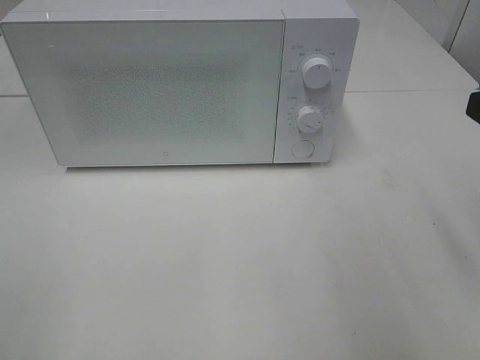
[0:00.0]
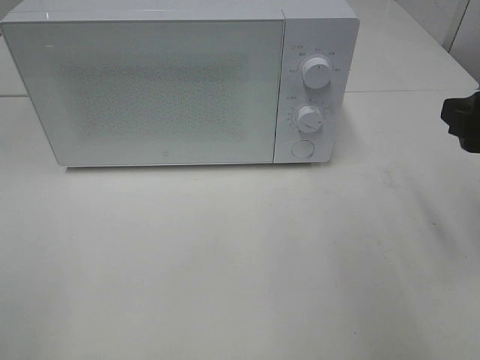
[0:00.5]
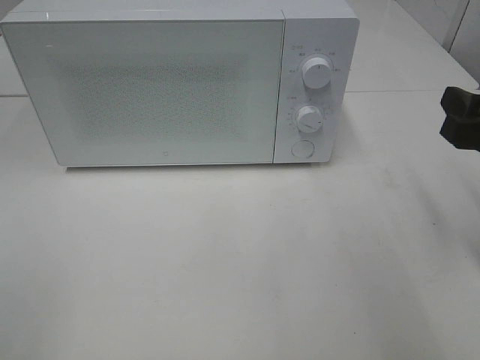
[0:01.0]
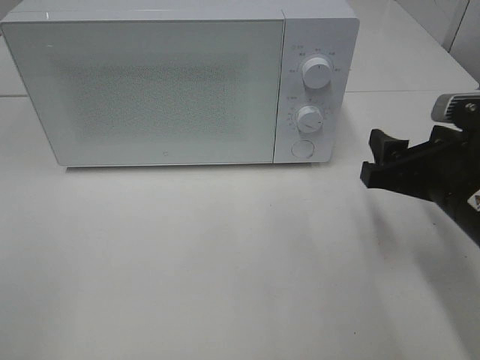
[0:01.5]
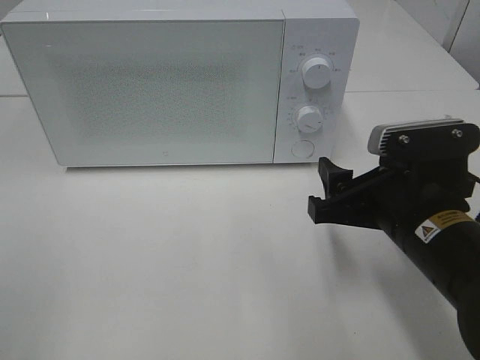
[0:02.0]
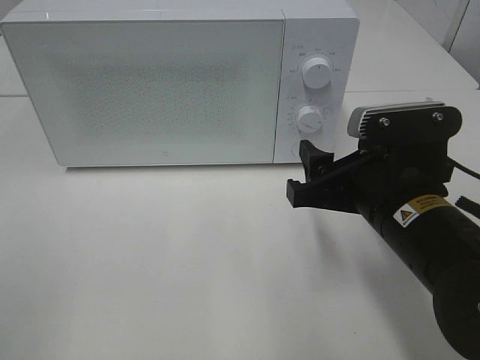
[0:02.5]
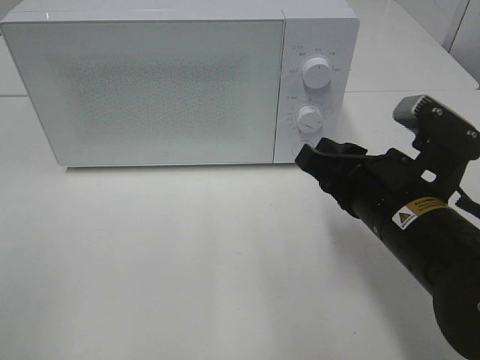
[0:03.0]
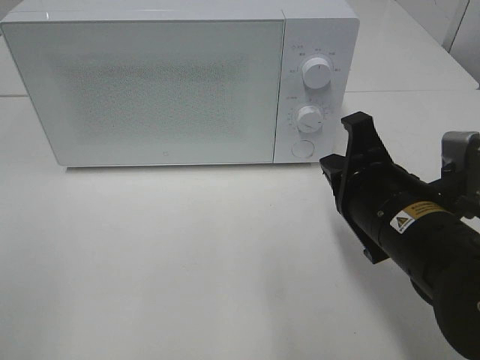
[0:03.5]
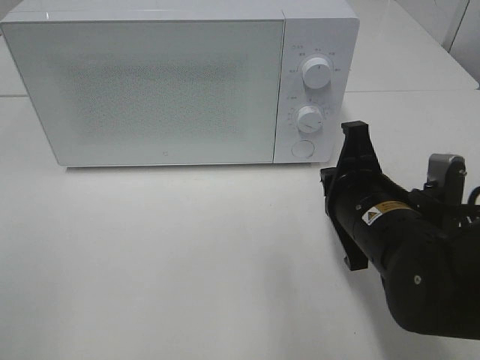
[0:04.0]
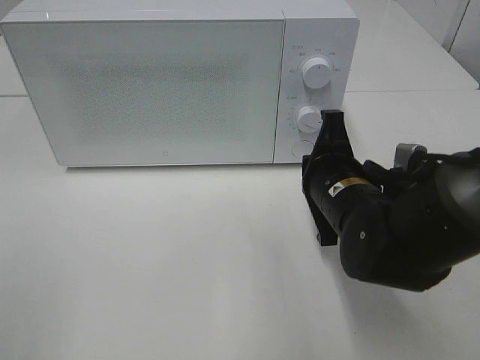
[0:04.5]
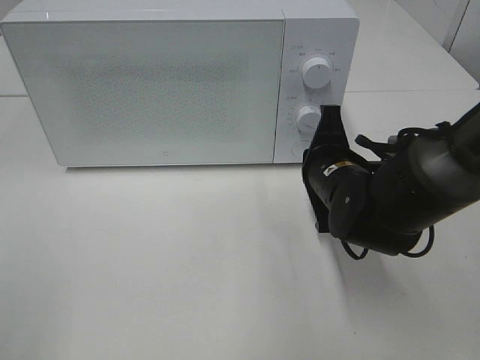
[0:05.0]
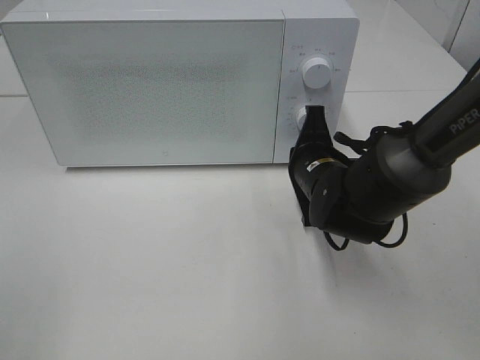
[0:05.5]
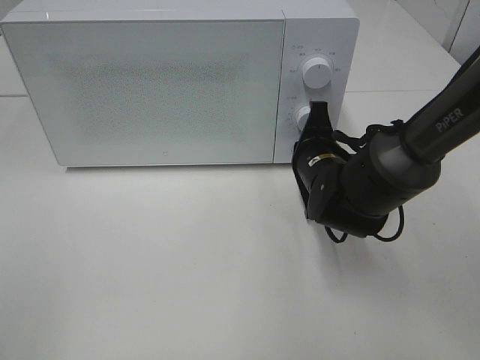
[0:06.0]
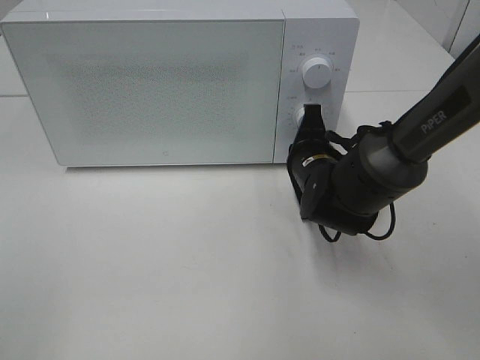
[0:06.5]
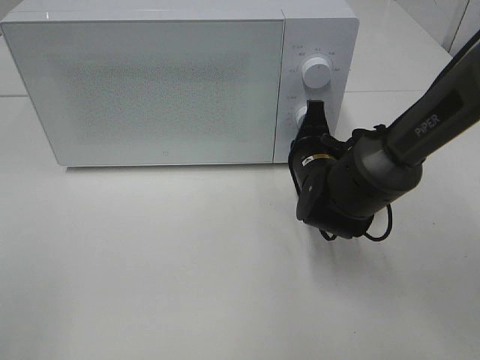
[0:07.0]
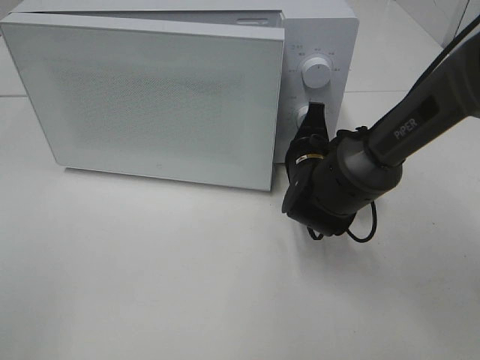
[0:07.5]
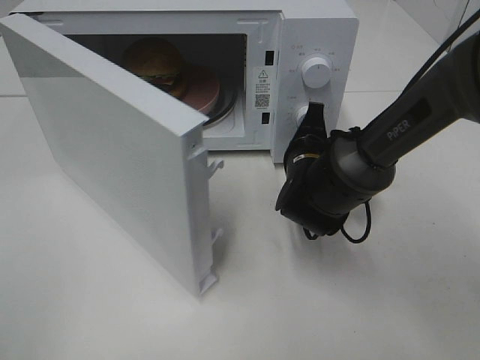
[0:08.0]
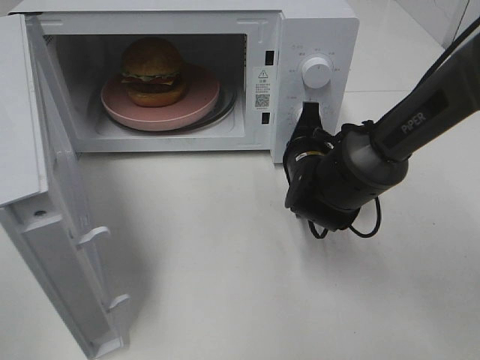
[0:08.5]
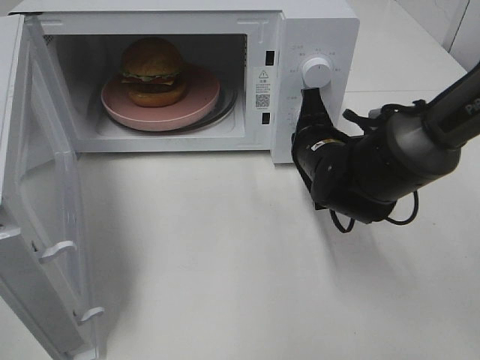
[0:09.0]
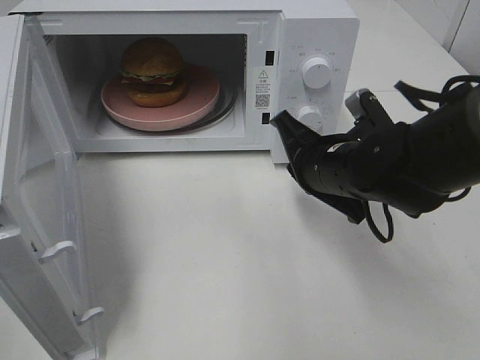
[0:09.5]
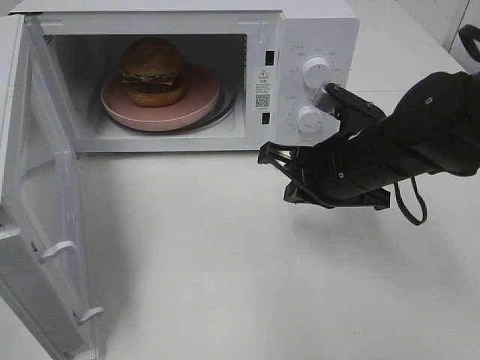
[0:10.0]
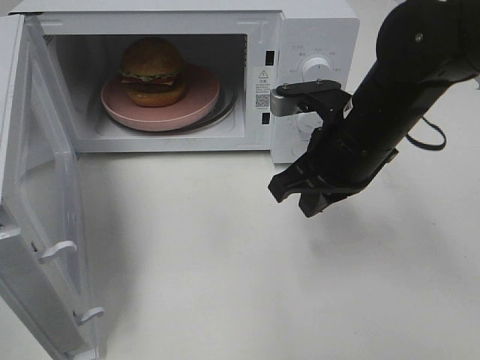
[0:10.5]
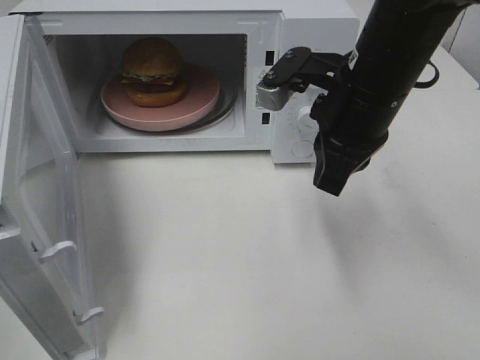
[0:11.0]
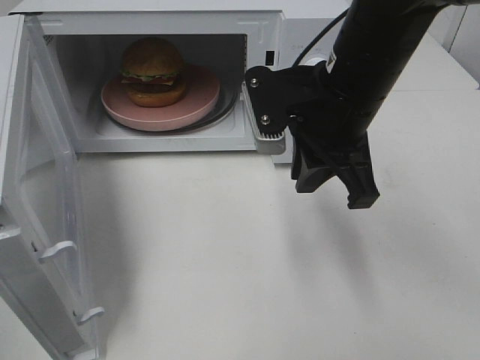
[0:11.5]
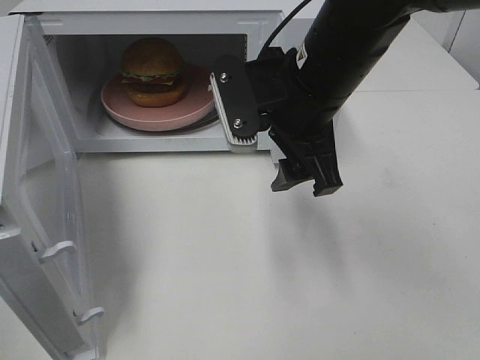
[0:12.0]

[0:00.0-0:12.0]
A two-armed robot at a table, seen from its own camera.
Task of the whole recording: Heat the burger.
Step, 0.0 to 8.5 s: Right hand: press the switch.
0.0 to 2.0 s: The right gripper shifts approximately 15 cm downward and to the left.
2.0 to 4.0 s: The right gripper closes.
4.0 to 6.0 s: The right gripper shifts approximately 10 cm forward.
8.0 to 10.0 s: The right gripper goes some 10 cm upward and backward.
10.0 to 12.0 s: The right gripper is displaced upward and to the left by some 10 cm, and opens its fingers.

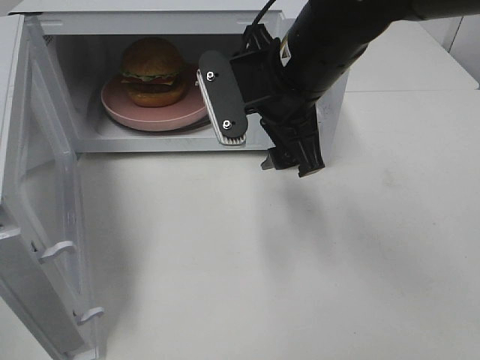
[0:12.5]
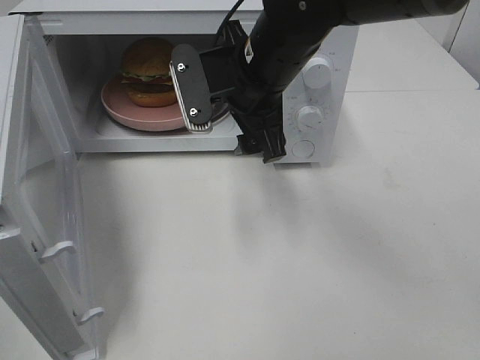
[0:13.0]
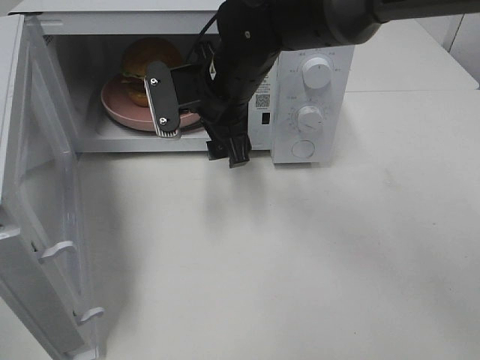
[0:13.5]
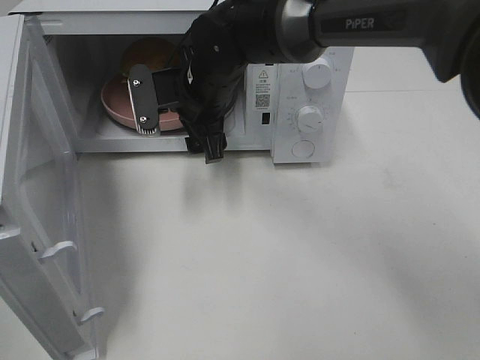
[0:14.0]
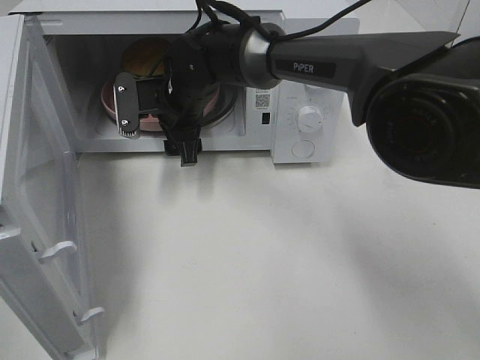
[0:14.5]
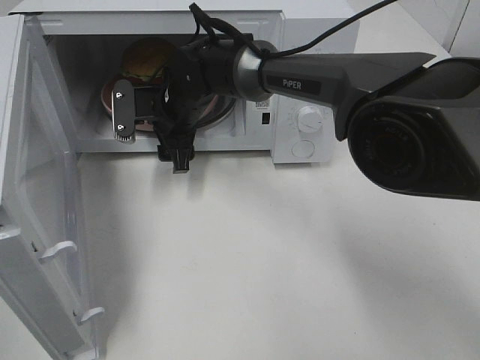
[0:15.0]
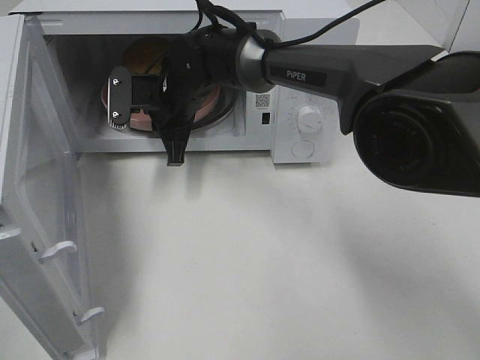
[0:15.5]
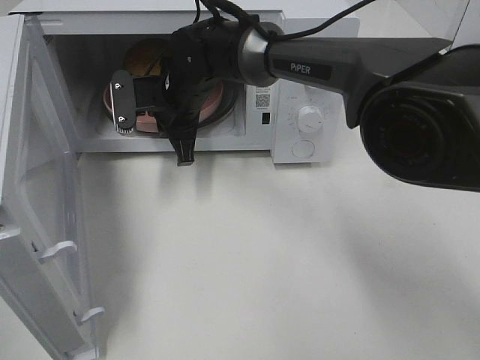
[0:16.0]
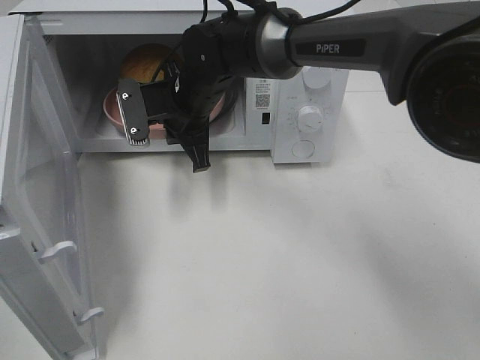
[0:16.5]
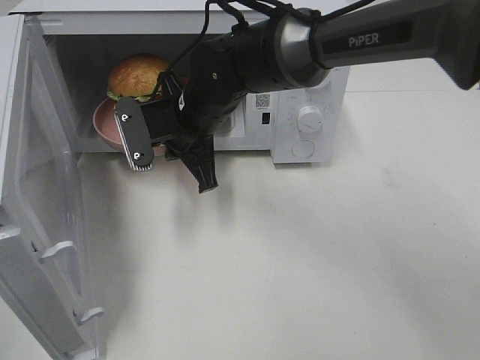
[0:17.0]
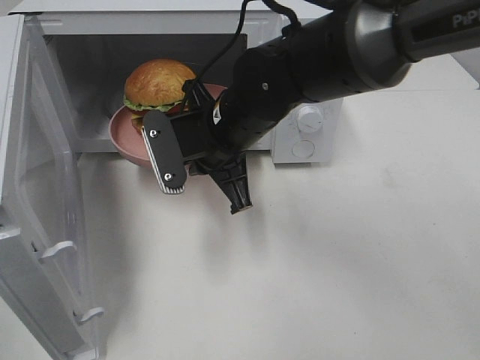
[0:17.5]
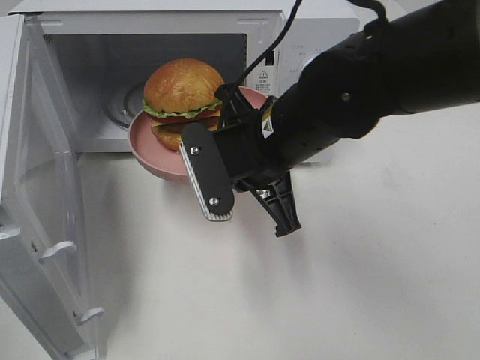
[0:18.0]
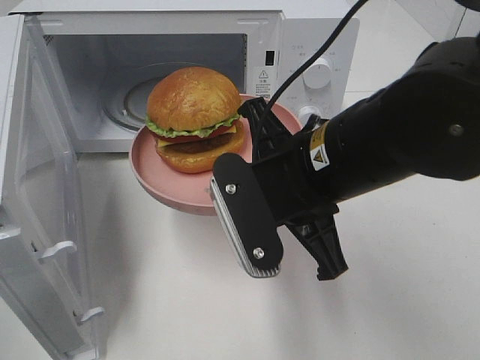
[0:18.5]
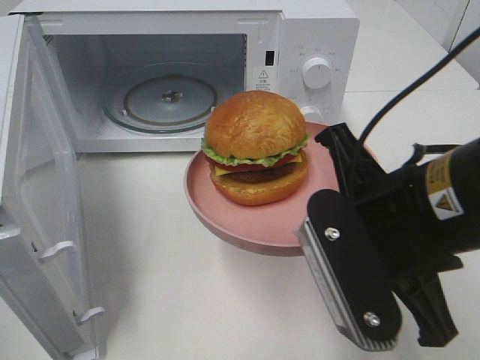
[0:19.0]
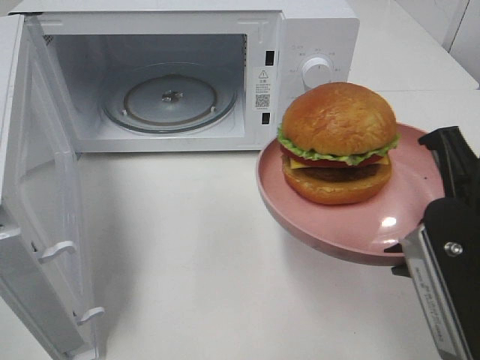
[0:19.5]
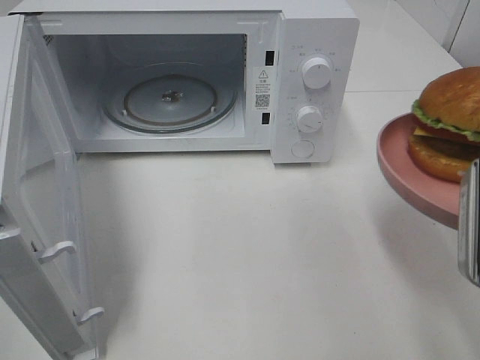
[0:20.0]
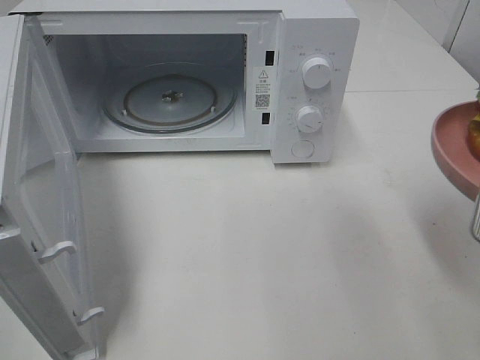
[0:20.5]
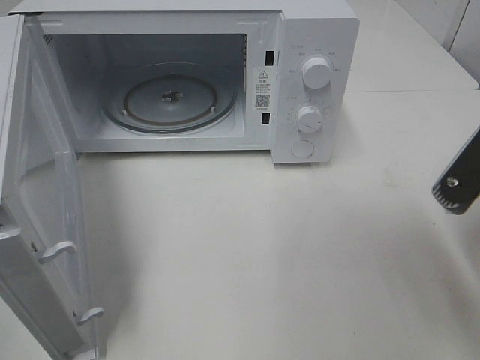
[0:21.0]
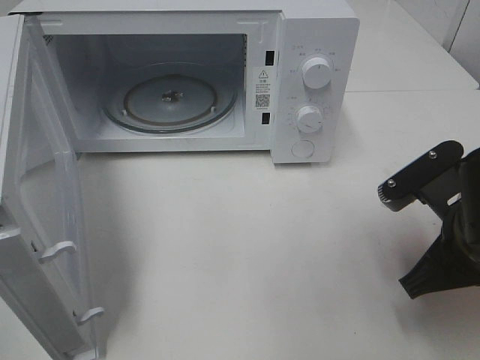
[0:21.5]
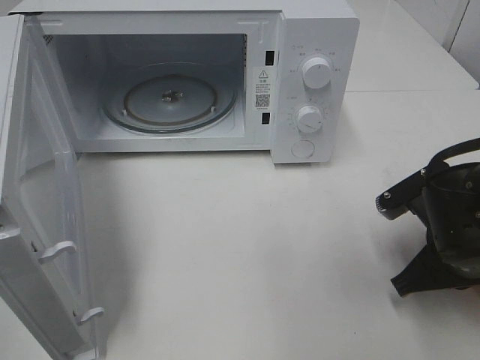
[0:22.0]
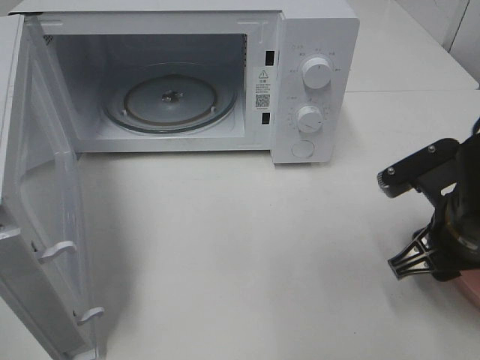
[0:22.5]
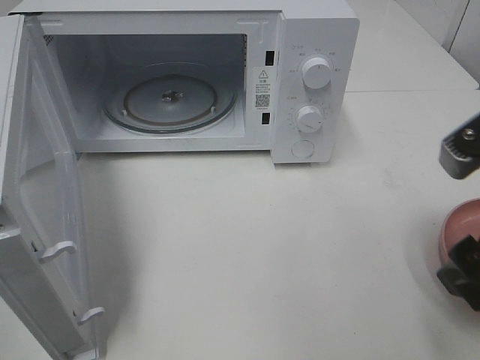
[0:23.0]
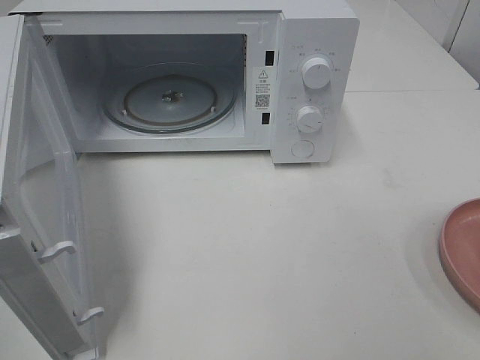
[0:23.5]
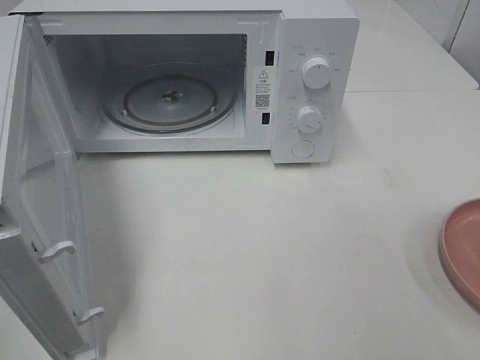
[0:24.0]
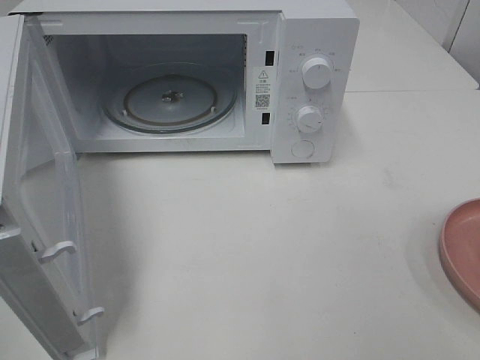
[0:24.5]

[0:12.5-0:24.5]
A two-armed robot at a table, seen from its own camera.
Task of the whole recording: Heat the burger.
Step, 12.5 to 15.5 s: Right hand: grab the plate with the hamburger.
Step, 16.0 to 22.0 s: Right hand: place the plate on the table.
12.5 to 14.5 s: The right gripper shifts about 20 cm forward, to the left and downward.
14.5 to 16.5 s: The right gripper closes up.
16.5 to 18.5 s: The right gripper goes about 25 cm backward and to the right.
18.5 to 20.5 s: The right gripper goes approximately 20 cm to the right and backward.
20.5 to 22.5 s: The right gripper travels downward and forward by about 15 cm, and opens its fingers.
22.5 to 24.5 s: The right gripper shifts roughly 25 cm backward and upward.

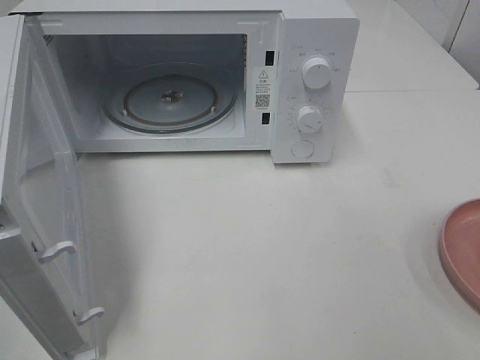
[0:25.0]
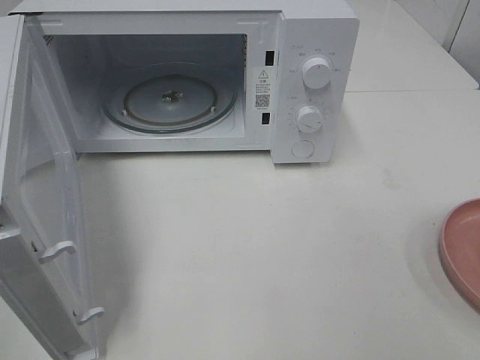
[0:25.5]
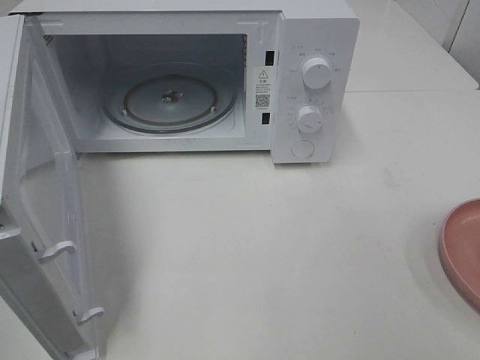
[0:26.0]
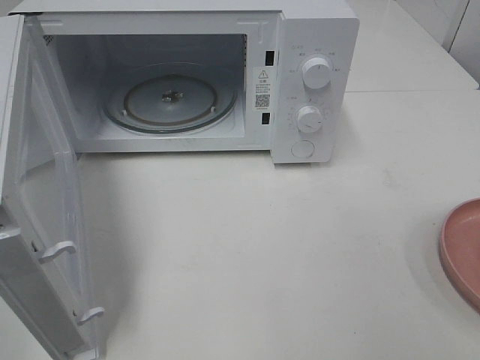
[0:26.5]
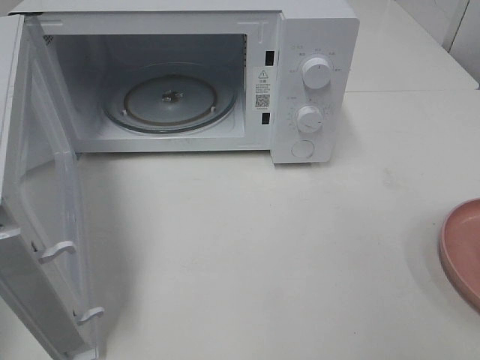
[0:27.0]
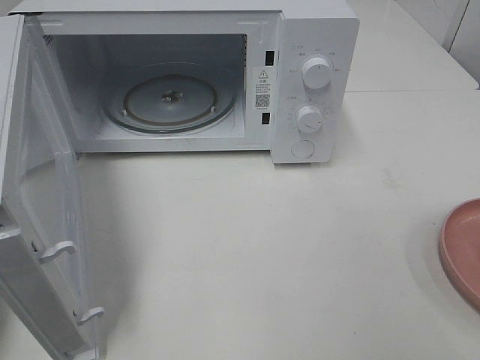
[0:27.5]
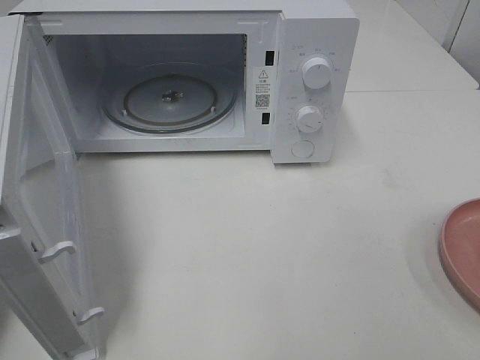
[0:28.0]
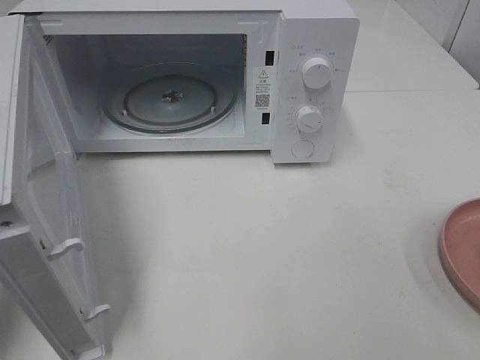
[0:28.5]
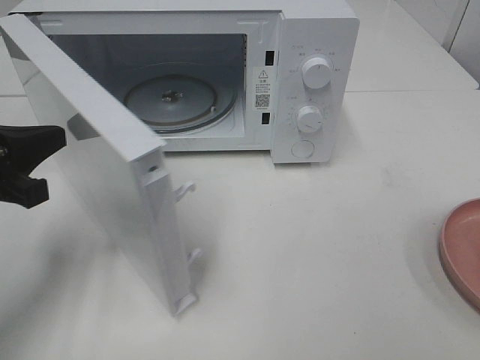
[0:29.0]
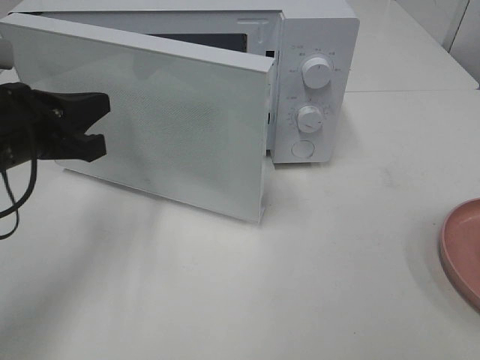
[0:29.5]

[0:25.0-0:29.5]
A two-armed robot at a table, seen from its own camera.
Task of the whole recording: Heat the burger.
27.0 to 29.5 s: The left gripper goes some 25 cm forward, to the right and downward.
